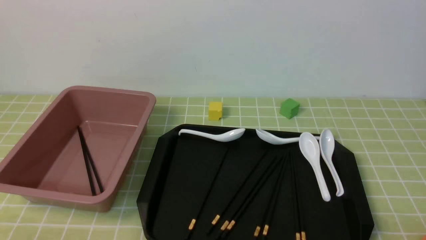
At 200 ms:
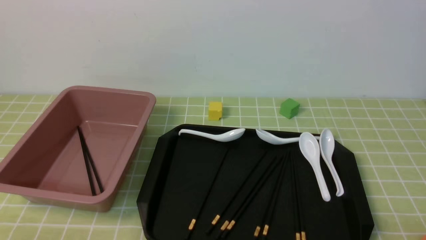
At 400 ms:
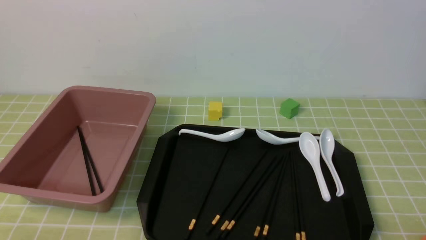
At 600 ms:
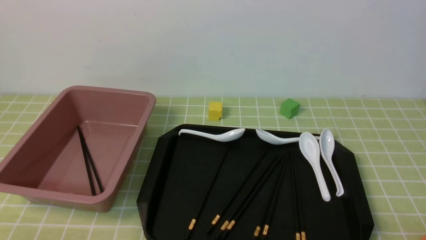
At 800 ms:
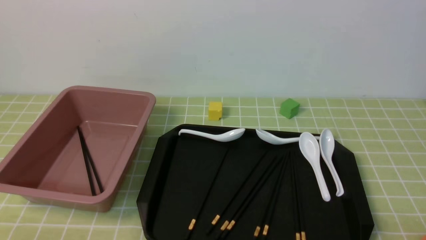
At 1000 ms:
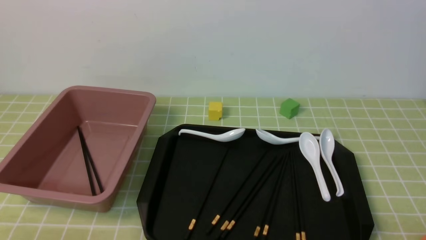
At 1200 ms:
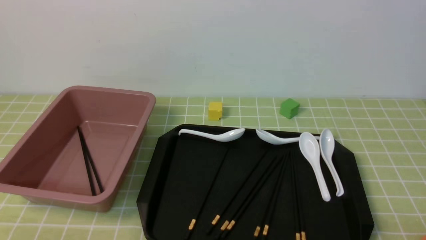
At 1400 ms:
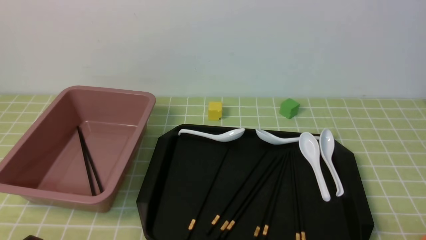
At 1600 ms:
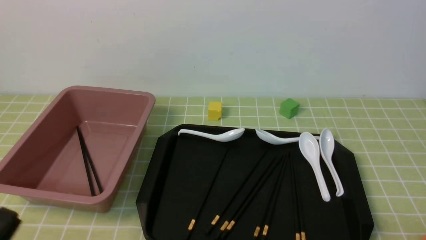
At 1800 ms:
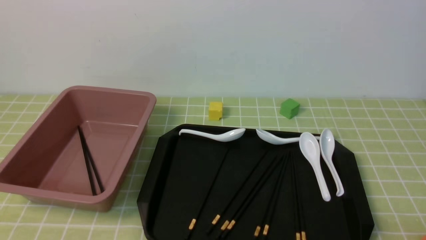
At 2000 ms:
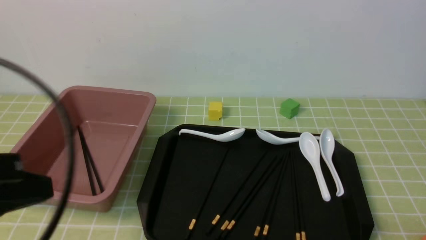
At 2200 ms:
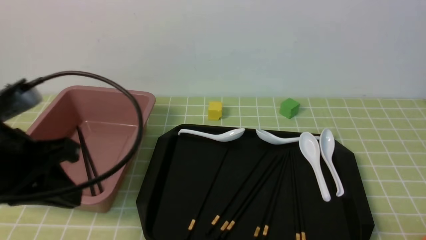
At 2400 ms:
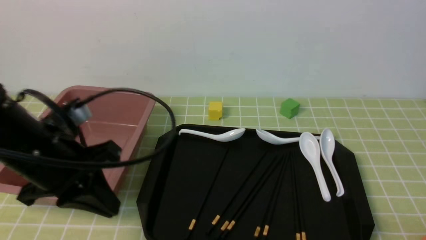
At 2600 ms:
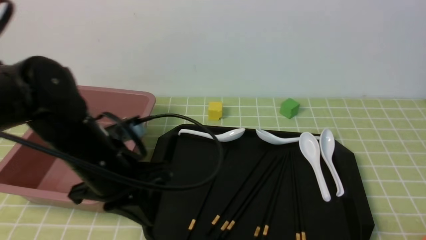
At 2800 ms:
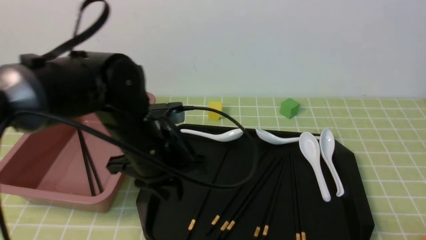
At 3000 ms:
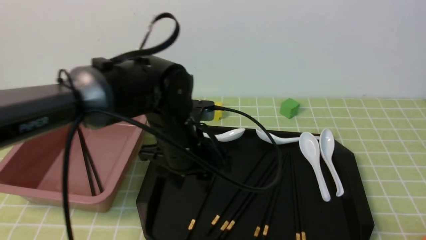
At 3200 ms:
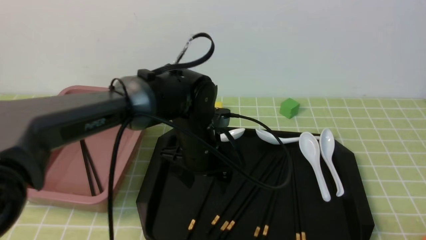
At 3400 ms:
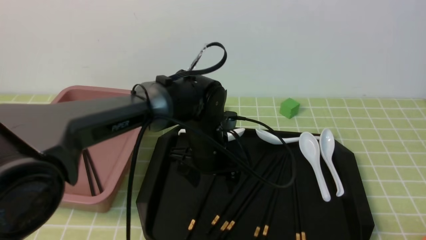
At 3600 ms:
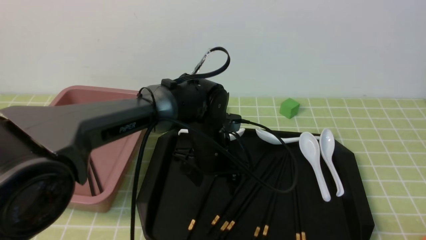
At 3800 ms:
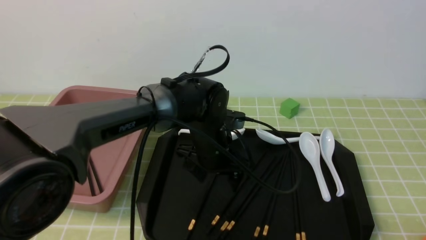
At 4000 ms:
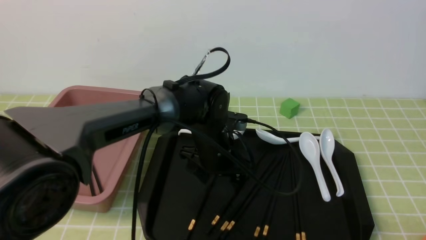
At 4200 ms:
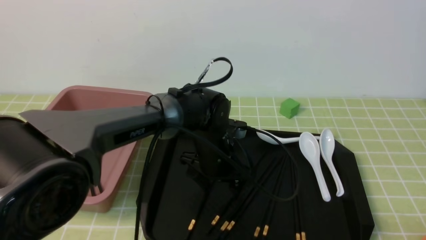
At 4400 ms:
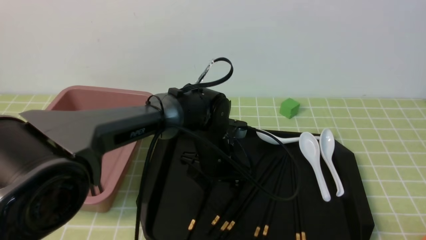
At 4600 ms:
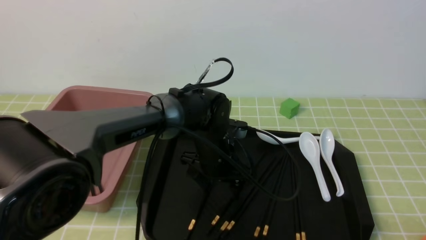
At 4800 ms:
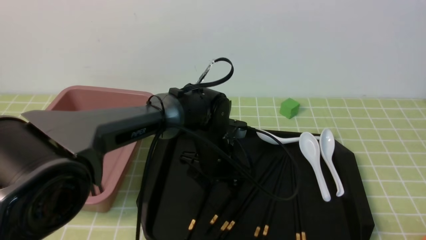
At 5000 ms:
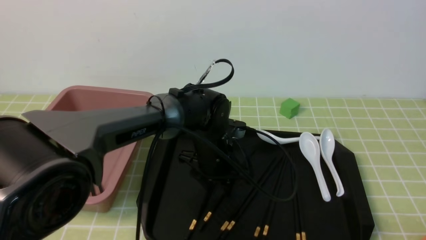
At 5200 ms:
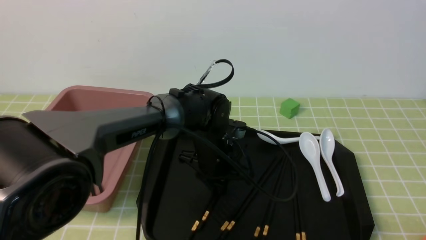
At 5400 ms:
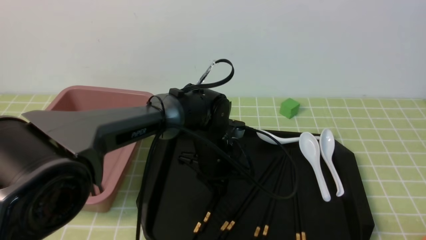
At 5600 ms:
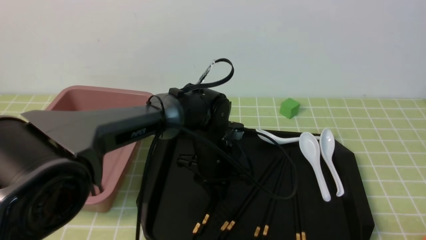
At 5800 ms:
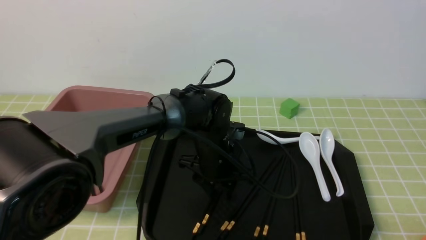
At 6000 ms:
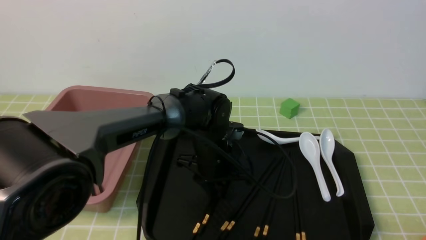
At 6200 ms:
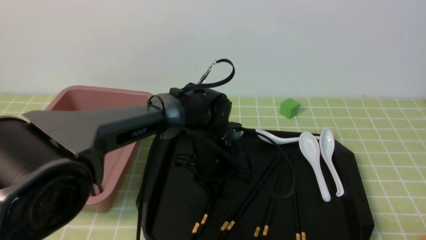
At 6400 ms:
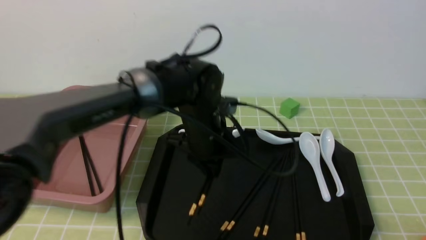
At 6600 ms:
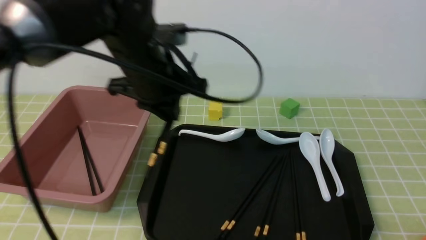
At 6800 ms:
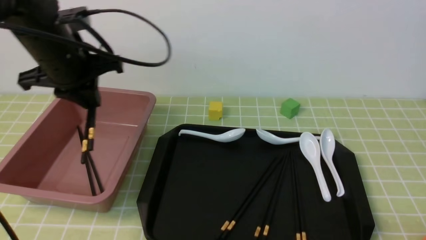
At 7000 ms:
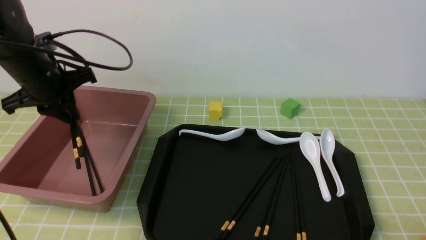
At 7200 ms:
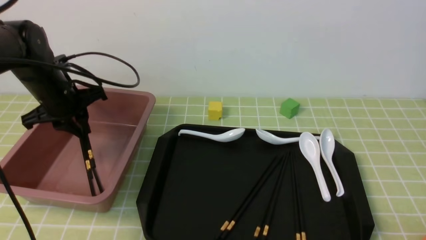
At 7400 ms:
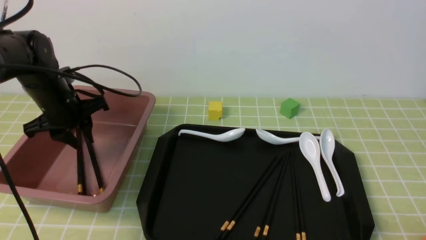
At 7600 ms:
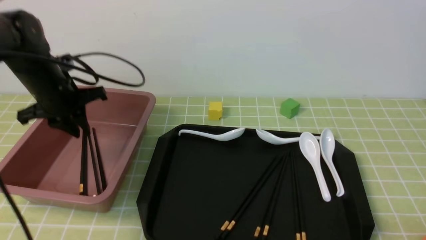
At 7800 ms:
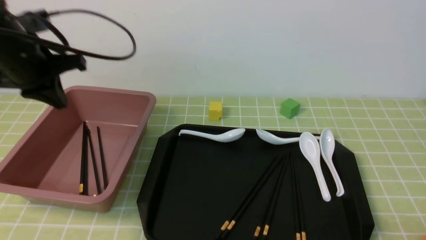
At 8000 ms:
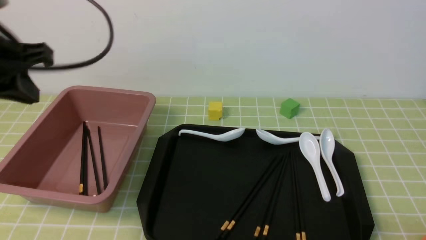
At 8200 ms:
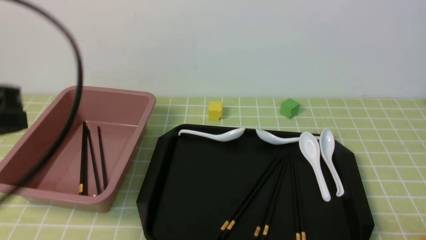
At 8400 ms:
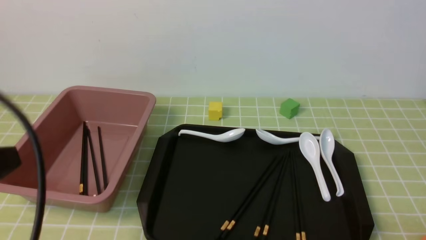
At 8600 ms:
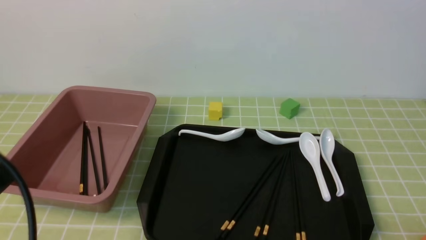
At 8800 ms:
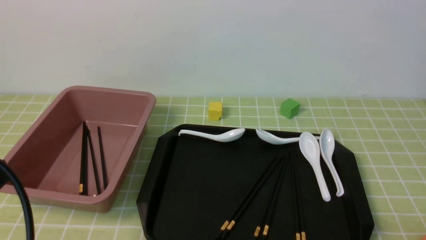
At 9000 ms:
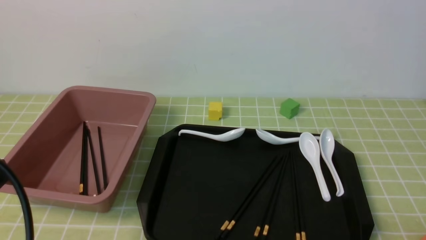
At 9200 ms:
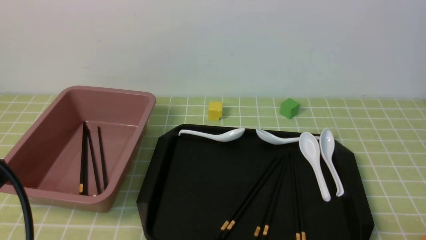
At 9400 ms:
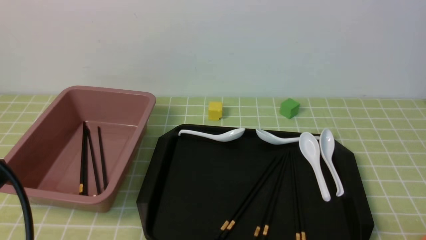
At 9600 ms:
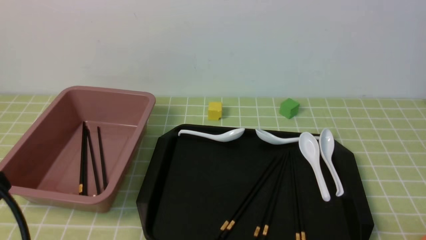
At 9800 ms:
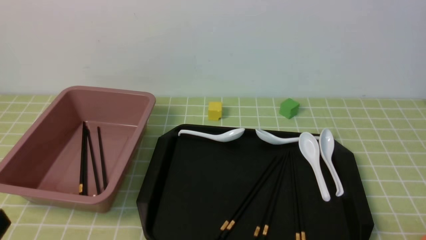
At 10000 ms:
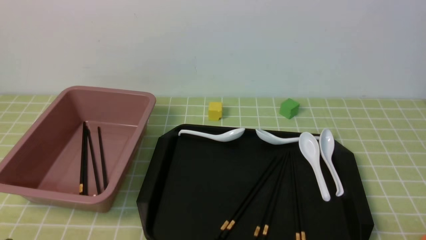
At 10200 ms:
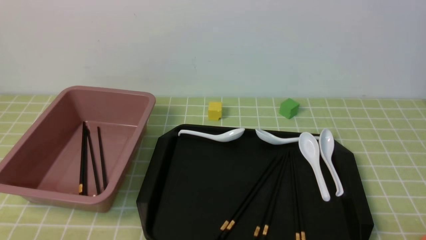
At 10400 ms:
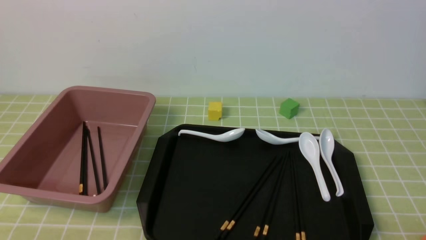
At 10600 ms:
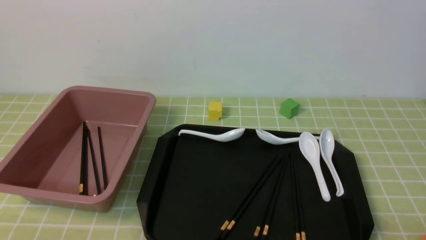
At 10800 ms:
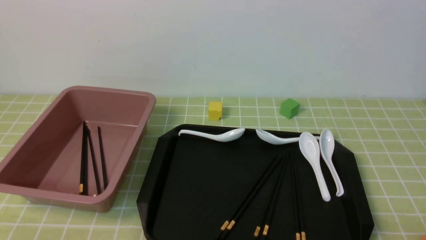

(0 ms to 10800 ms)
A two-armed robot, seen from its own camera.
Step, 0 ms - 6400 ms: use the left arm to grab a pair of chopsticks.
Step, 6600 ms - 7600 ms: use the left arm to put the chopsticks into the lunch box.
0 ms - 1600 ms: The left gripper shifts some 10 cm upward.
1600 ms - 3000 ms: The left gripper travels forward and to the right by about 35 cm, and opens up.
3000 ms - 4600 ms: The left gripper goes some 10 cm downward, to the right and forward.
4600 ms - 6200 ms: The left gripper closes.
6200 ms - 7800 ms: The left gripper is displaced to the left and upward by some 30 cm.
7800 ms - 9200 ms: The left gripper heads backward, covering some 25 cm.
9200 ms - 10800 ms: The left gripper goes some 15 cm downward.

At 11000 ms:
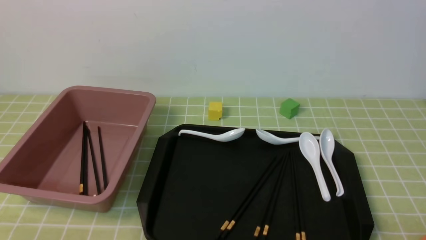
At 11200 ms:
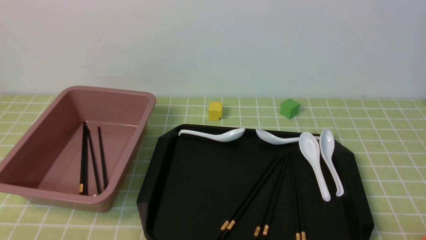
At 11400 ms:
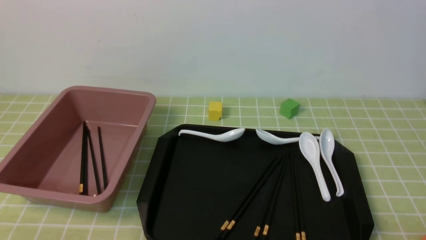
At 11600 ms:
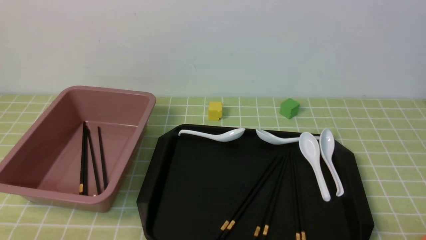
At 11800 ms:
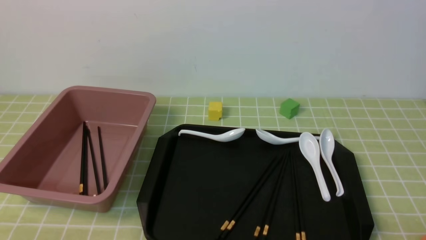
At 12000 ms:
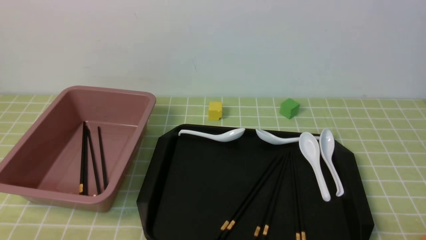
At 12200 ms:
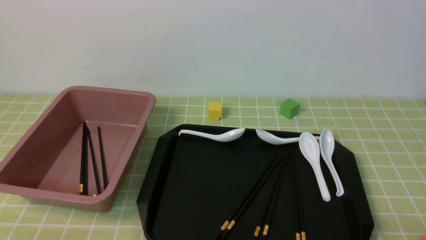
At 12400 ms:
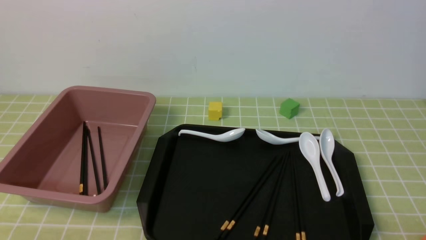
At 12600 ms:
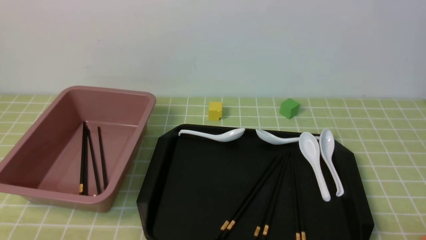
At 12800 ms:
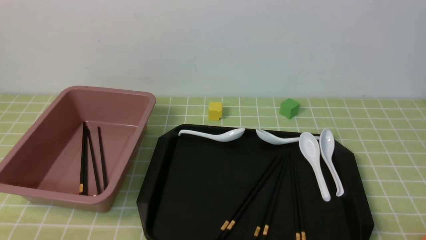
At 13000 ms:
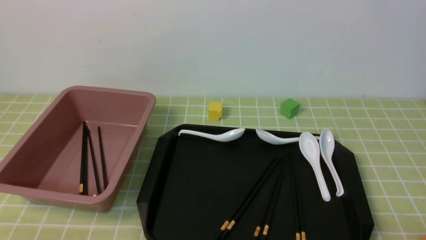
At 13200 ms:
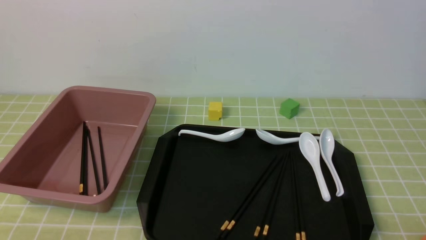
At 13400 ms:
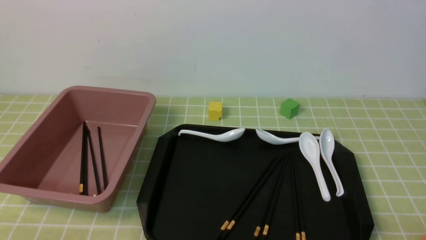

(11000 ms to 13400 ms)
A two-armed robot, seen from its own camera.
12200 ms - 13400 ms: Both grippers stay about where they are.

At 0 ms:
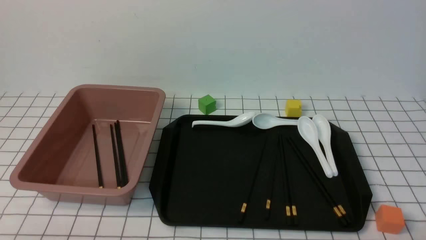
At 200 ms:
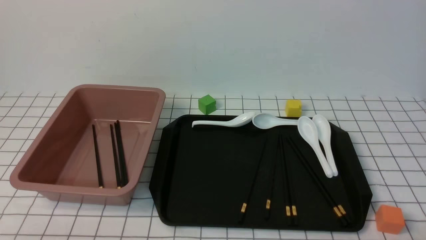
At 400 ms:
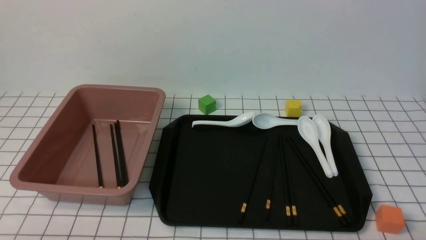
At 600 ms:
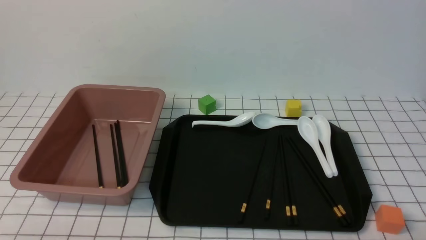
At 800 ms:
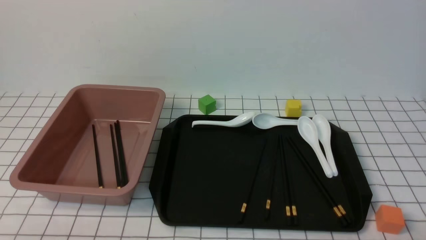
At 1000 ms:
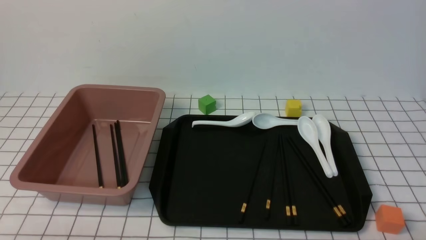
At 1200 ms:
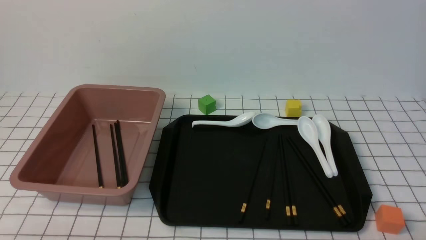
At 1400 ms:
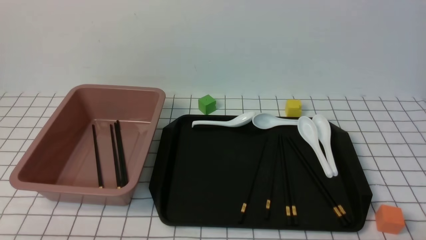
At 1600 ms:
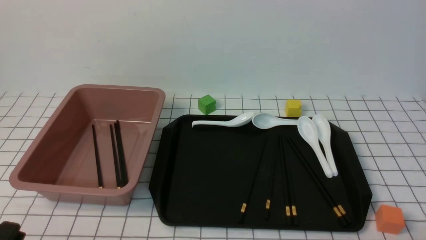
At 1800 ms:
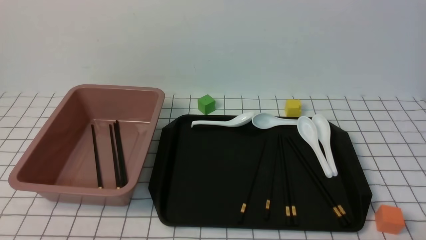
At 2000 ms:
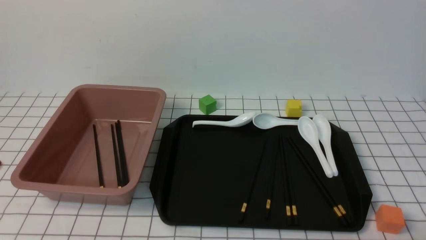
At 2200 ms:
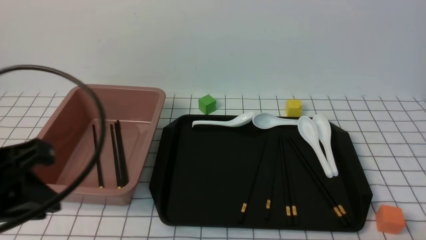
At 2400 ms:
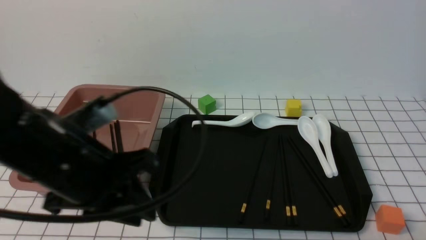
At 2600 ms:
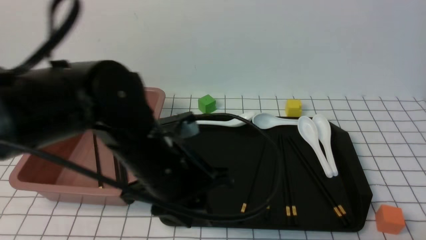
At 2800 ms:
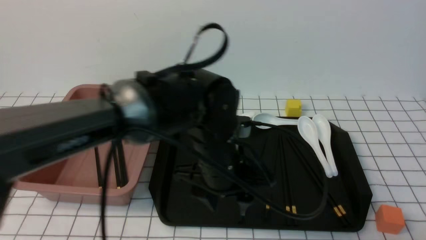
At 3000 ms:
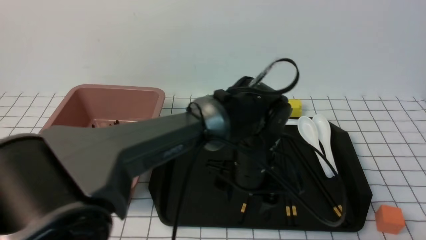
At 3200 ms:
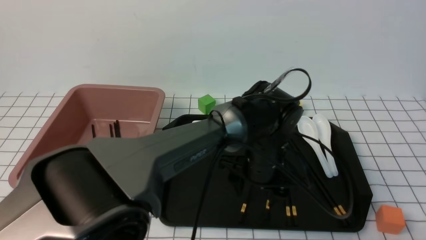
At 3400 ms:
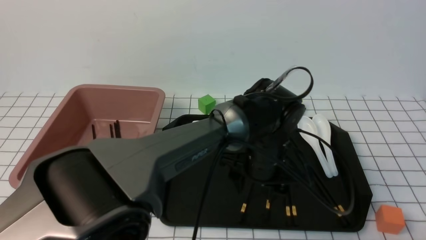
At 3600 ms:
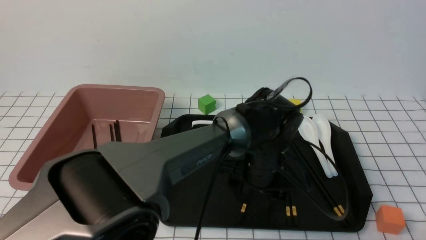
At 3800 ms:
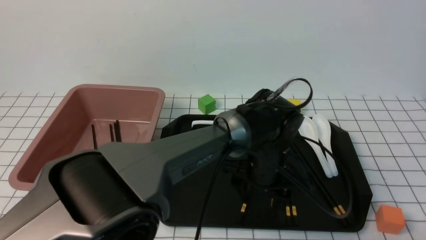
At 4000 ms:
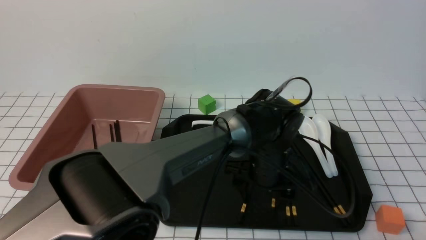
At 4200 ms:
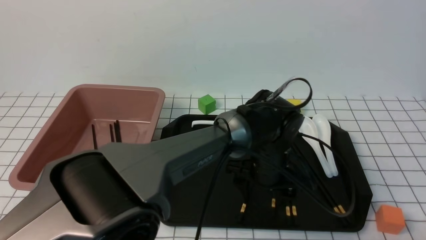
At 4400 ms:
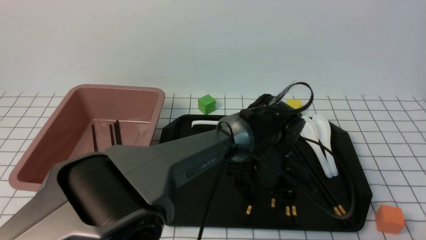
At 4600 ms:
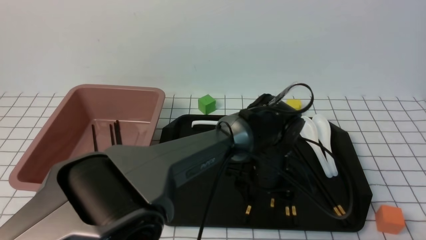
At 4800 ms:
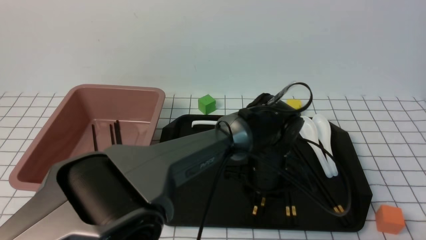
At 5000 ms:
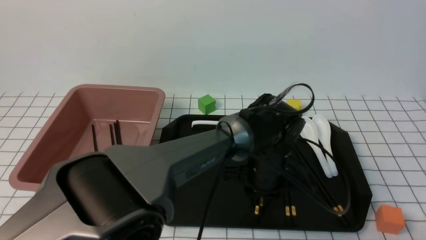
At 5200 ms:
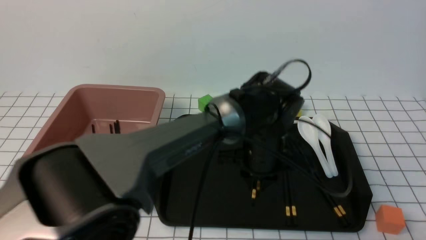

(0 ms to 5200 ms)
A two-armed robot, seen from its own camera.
Step, 0 ms - 5000 ms: use the left arm to grab a pair of chopsticks.
1800 ms - 3400 ms: The left gripper goes approximately 40 cm to the right and forward, and opens.
3400 ms - 5200 ms: The left gripper heads upward, covering some 5 cm, and closes.
